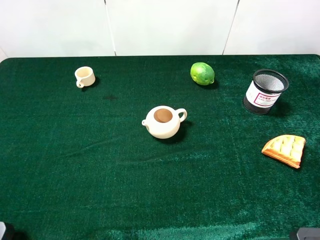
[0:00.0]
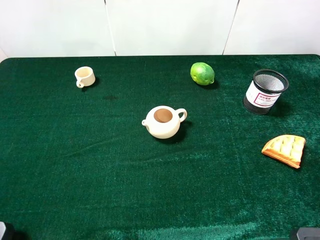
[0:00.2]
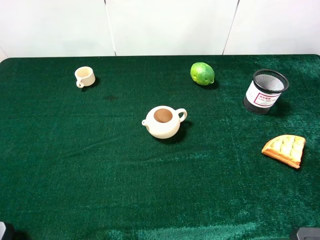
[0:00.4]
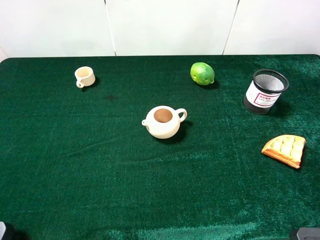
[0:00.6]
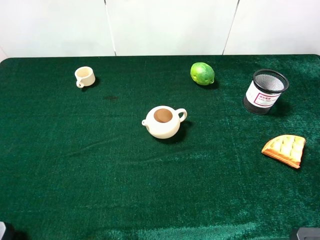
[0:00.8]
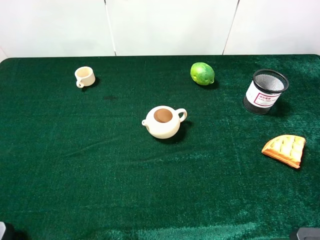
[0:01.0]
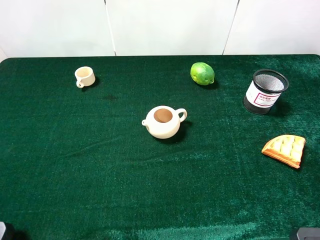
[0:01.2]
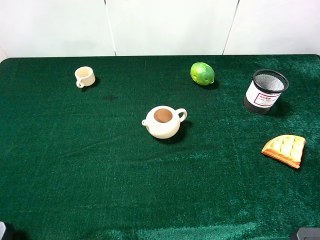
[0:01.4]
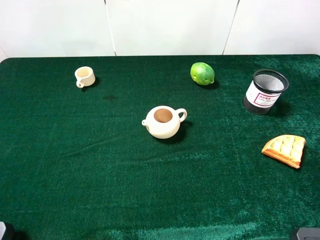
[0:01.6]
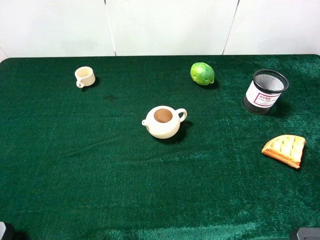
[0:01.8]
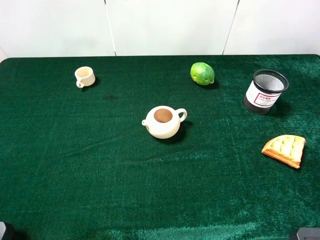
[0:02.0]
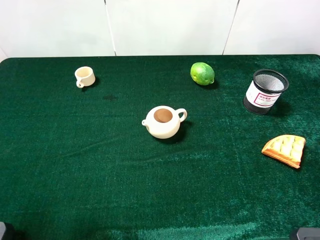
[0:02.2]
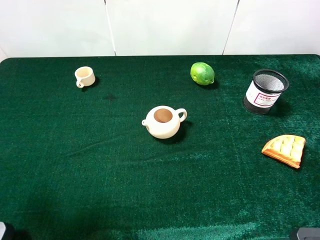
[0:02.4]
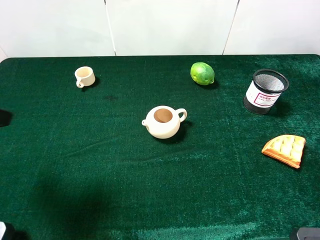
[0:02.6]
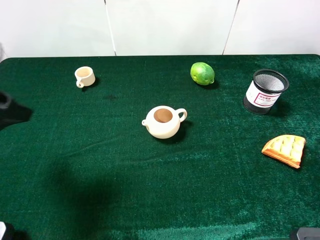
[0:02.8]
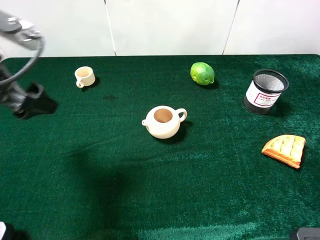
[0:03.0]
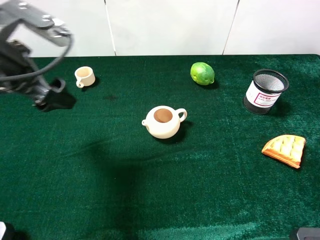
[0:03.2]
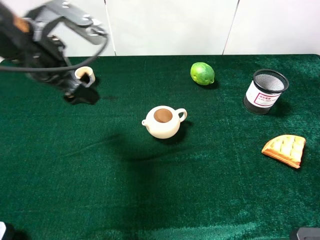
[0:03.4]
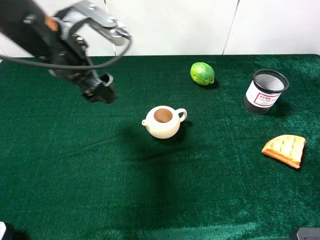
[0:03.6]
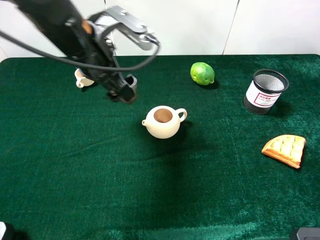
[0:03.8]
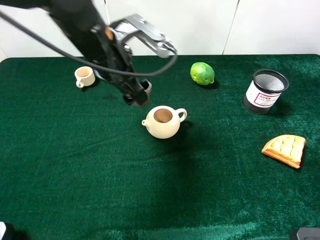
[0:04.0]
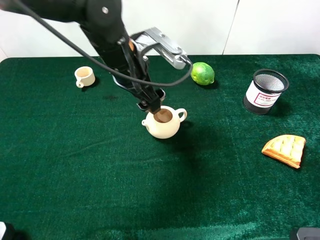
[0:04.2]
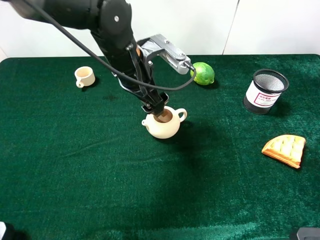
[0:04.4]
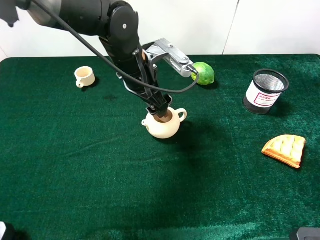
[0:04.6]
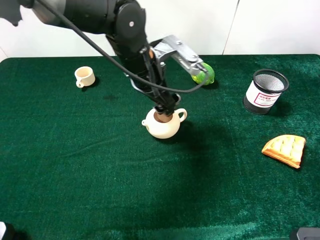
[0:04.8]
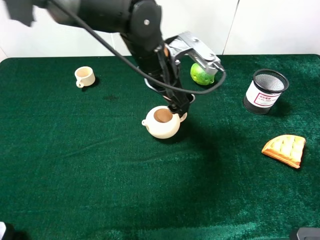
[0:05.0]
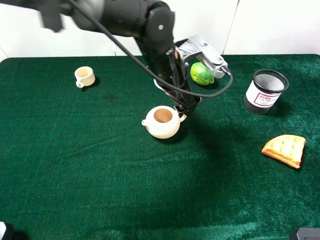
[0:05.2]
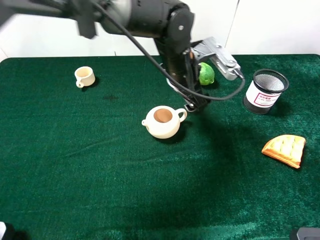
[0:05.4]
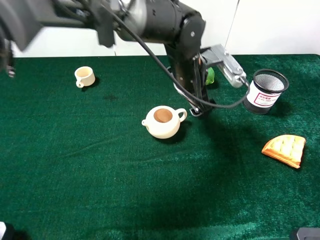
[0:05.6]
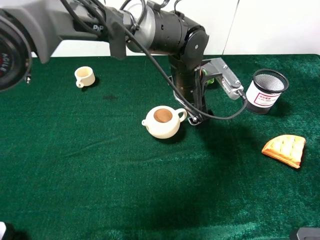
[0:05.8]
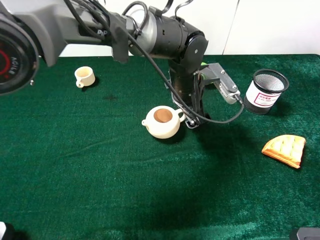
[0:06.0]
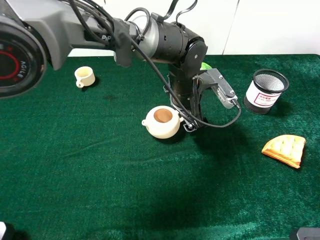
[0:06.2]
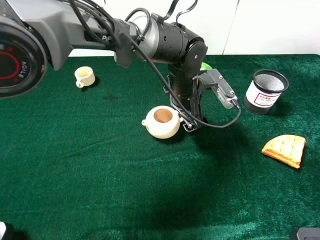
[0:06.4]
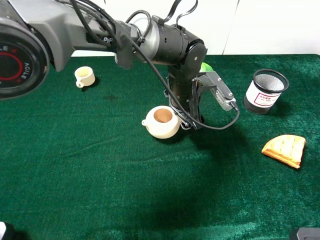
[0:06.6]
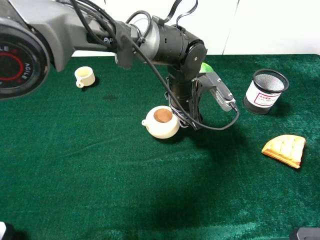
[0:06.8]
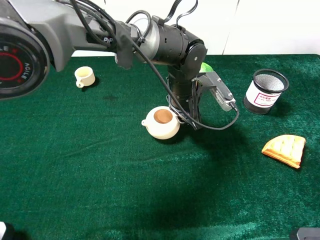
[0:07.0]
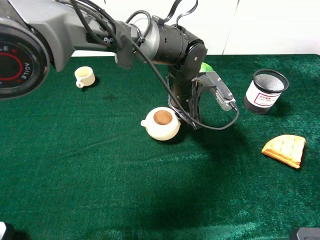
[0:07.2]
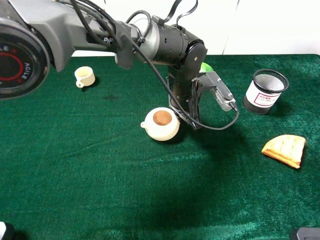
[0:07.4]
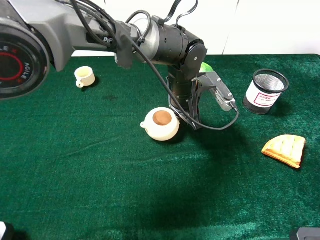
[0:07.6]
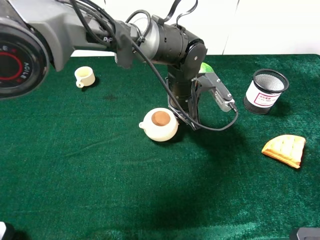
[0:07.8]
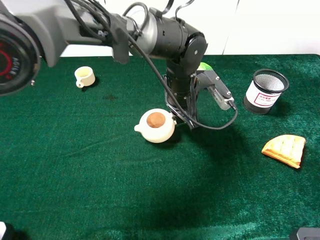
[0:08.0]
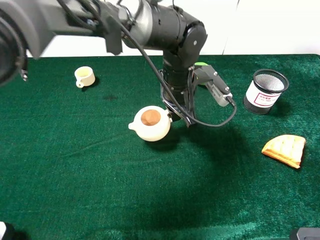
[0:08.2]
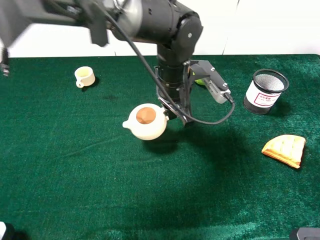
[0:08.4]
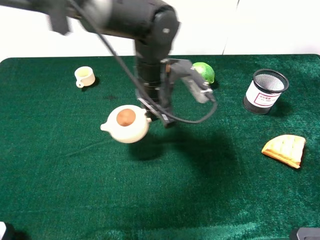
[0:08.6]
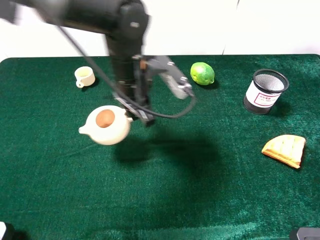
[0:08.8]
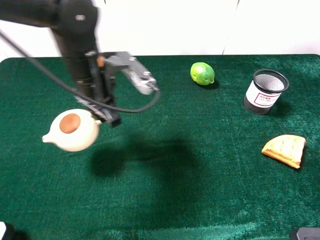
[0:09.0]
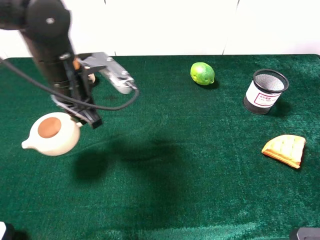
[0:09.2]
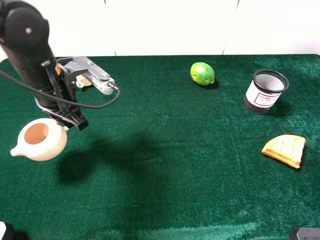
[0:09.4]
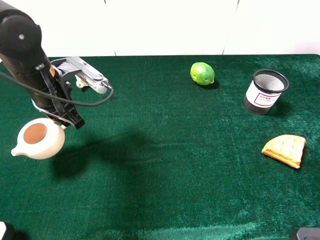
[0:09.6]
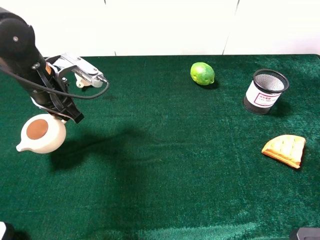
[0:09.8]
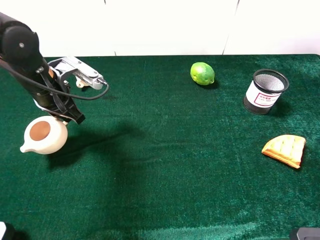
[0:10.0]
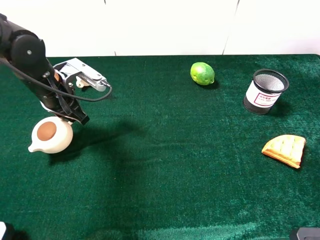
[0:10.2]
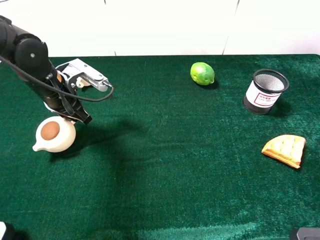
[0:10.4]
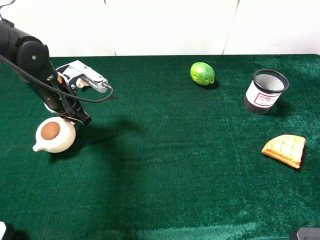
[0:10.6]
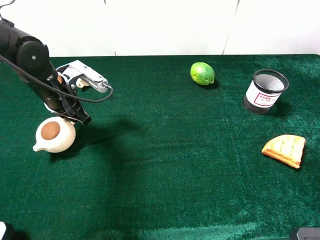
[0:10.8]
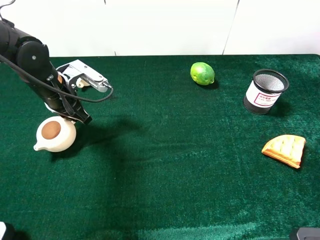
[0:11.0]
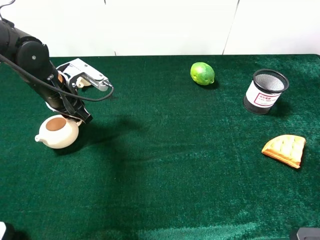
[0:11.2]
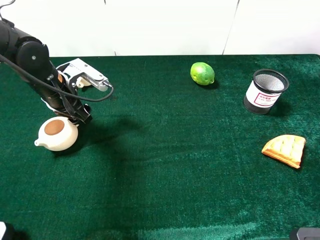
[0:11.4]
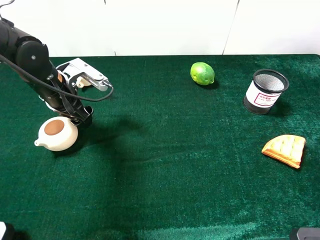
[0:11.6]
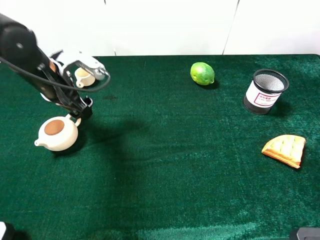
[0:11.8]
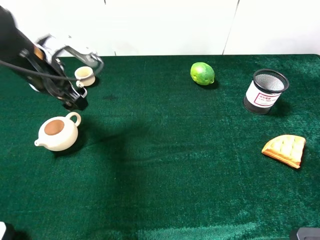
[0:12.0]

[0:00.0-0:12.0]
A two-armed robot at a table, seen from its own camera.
Task of the whole recording: the gripper move the object.
Step, 0:00.0 to 0:07.2: Grasp the teapot with the left gripper.
Step, 0:07.4 to 0:11.2: Place the teapot on the table with the left gripper.
0:00.0 to 0:01.6: The two grippers keep their place.
0:01.6 to 0:03.0: The left gripper heads forward, covering about 20 cm.
0:03.0 to 0:04.4: The left gripper is displaced to the right, forward and downward by approximately 25 cm.
0:04.4 to 0:06.0: The left gripper travels to the right and downward by some 10 cm.
0:06.0 to 0:07.6: The left gripper closes.
0:07.6 to 0:09.0: The left gripper is displaced to the left and upward by approximately 20 cm.
0:09.0 to 0:10.4: The left gripper heads to the left and downward, covering some 10 cm.
0:10.4 to 0:12.0: The left gripper goes roughly 5 cm upward, and opens up.

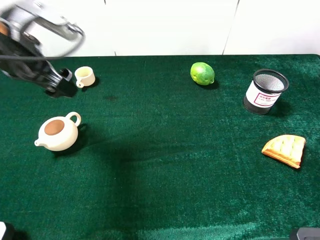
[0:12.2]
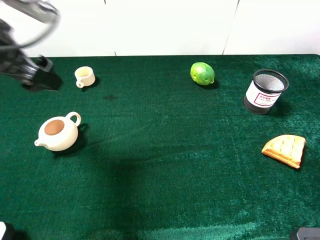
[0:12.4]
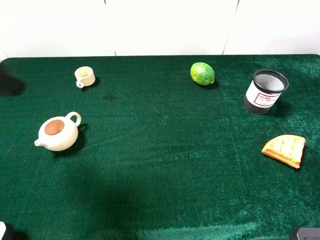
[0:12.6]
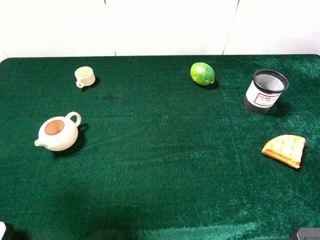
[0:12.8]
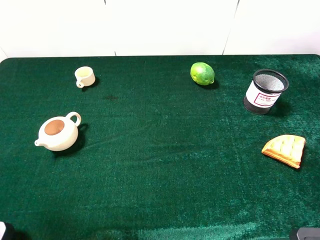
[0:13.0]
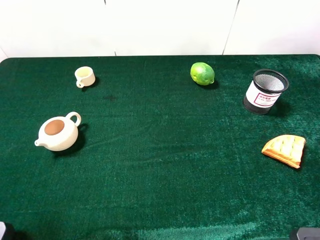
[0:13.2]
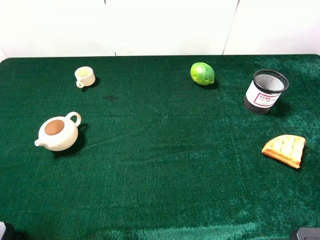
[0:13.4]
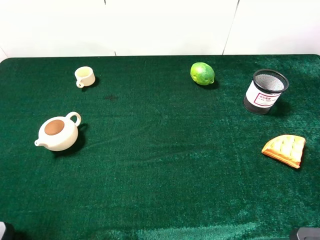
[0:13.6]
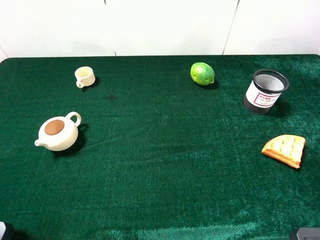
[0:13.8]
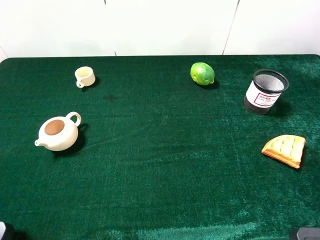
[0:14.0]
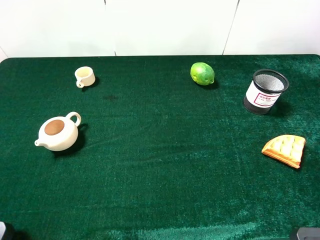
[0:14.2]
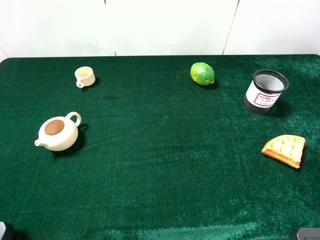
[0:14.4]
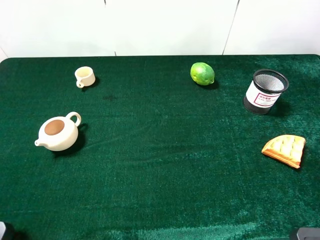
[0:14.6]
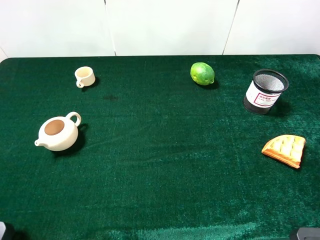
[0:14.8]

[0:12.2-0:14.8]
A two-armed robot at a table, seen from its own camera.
Task of the whole recording: the gripper move the object.
0:12.2 to 0:13.4: The left gripper moves backward, approximately 20 cm.

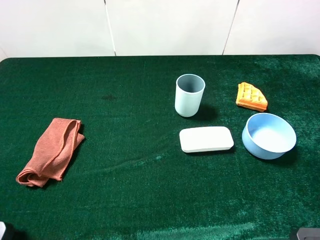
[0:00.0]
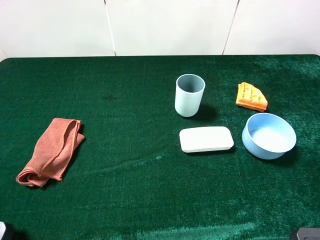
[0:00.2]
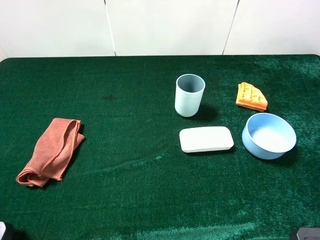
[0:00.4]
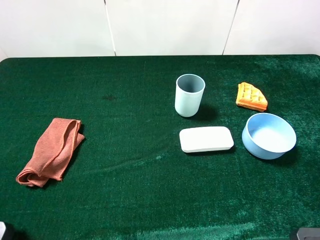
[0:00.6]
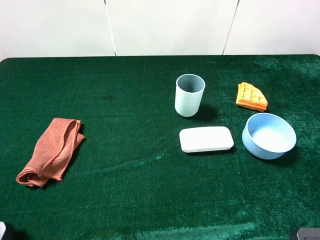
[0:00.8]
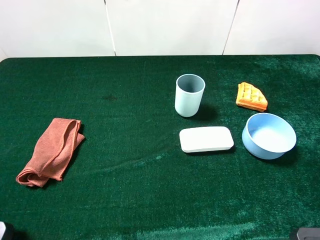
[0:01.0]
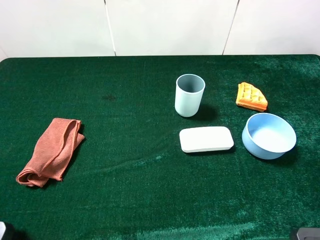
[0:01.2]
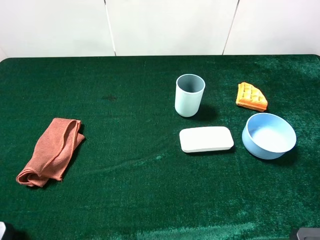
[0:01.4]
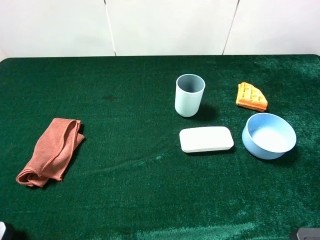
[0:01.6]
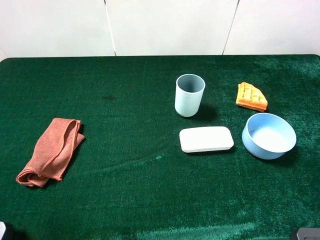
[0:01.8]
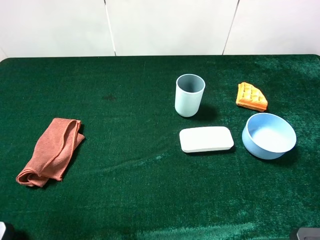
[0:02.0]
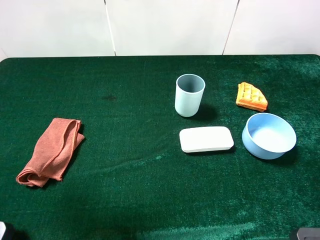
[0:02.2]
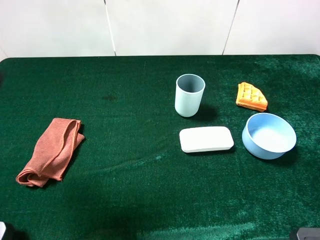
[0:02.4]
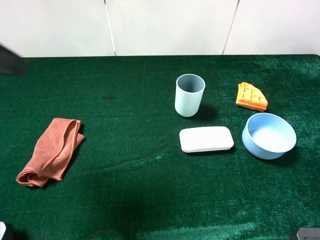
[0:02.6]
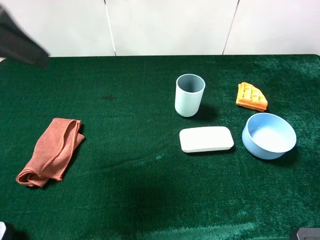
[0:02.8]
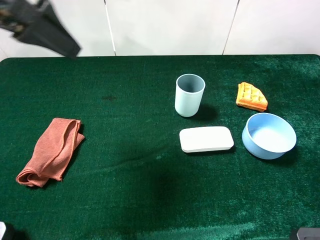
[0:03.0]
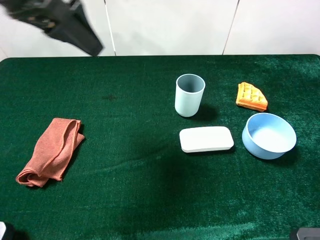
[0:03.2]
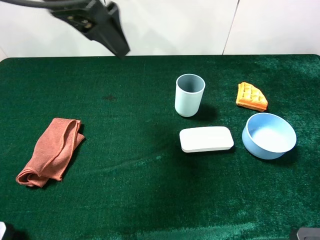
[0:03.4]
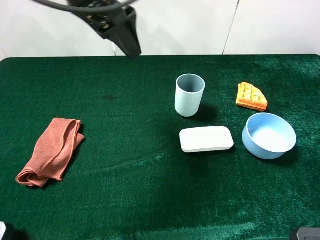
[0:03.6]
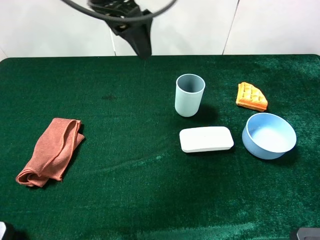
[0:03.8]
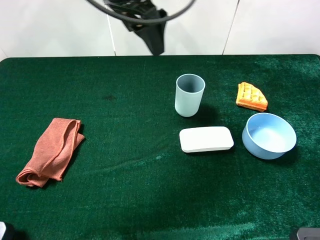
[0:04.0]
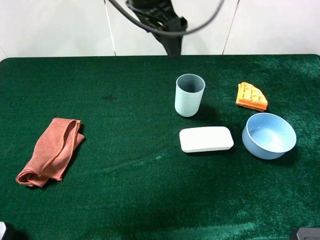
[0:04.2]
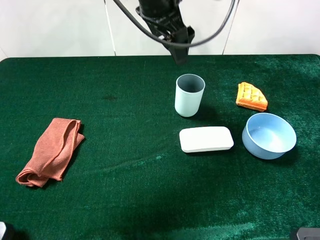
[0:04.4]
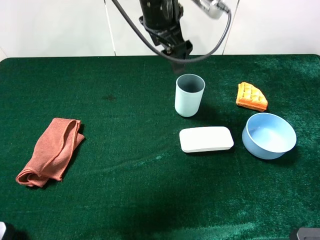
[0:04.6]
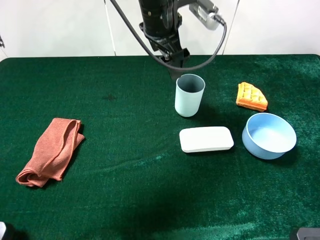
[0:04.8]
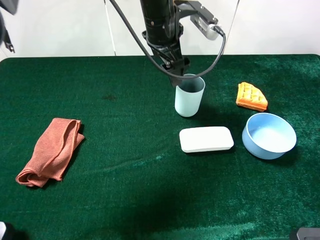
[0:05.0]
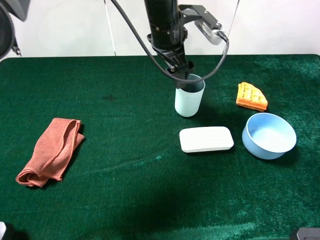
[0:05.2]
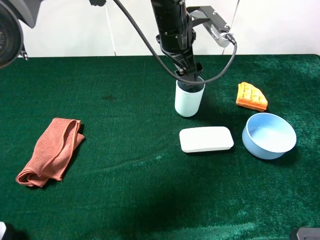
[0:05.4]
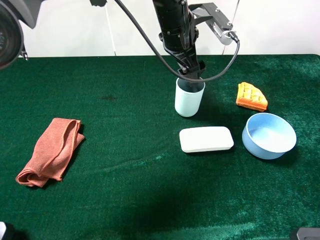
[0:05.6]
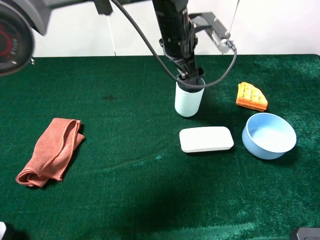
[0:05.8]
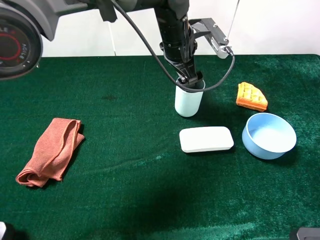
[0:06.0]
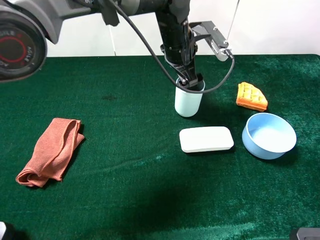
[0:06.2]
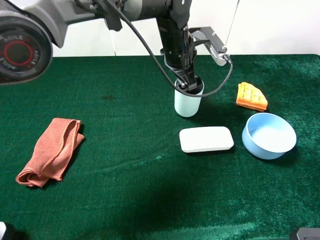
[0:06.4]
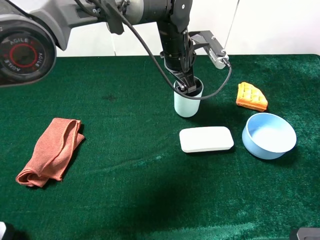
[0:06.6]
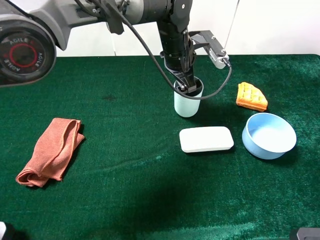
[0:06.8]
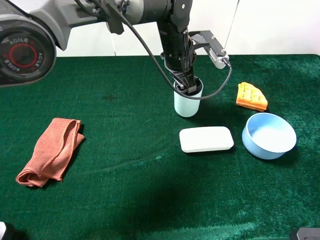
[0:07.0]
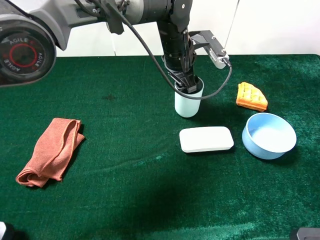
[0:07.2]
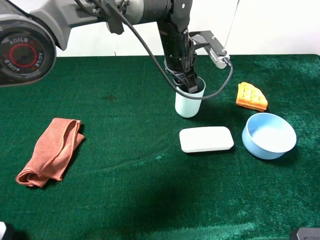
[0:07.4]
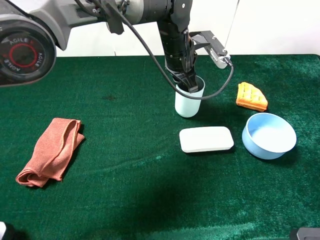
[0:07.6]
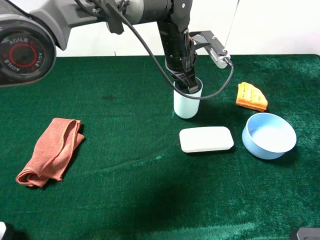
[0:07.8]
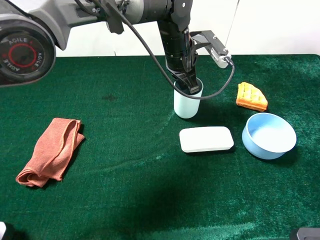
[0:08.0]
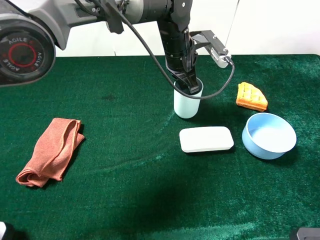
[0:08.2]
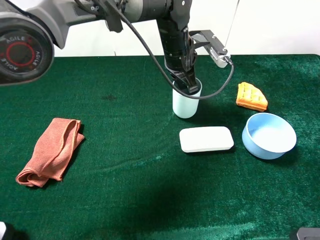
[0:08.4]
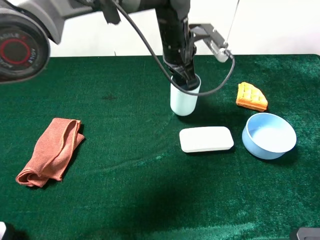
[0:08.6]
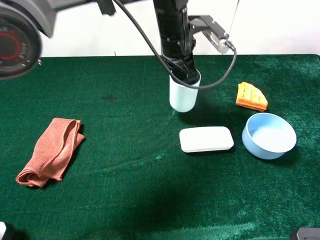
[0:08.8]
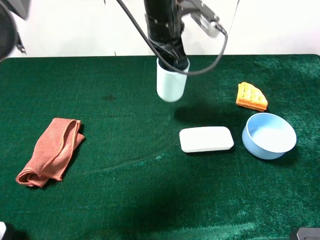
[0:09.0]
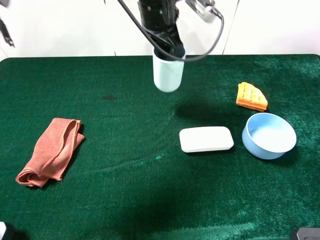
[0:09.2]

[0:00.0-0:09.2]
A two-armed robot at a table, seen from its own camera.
Task of the whole recording: the gripper move the object.
Step, 0:00.0 to 0:08.2: Grasp the cyan cup with the left gripper.
0:01.6 to 0:03.0: The left gripper shifts some 20 cm forward.
0:03.0 to 0:04.6: The left gripper is displaced to the right, forward and downward by roughly 25 cm.
0:04.6 to 0:06.2: The left gripper shifts approximately 10 cm downward.
0:06.2 to 0:07.6: The left gripper closes up.
0:07.6 to 0:09.2: The left gripper is displaced upward by about 10 cm.
